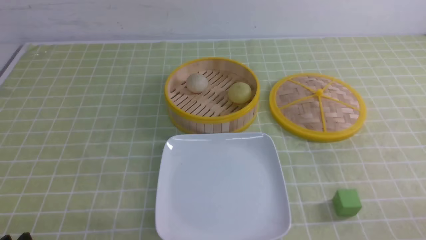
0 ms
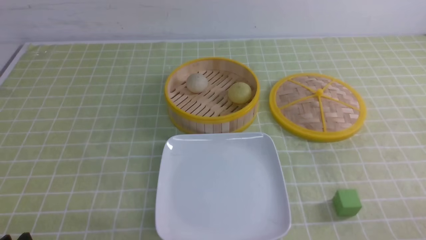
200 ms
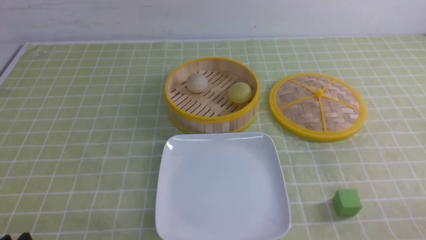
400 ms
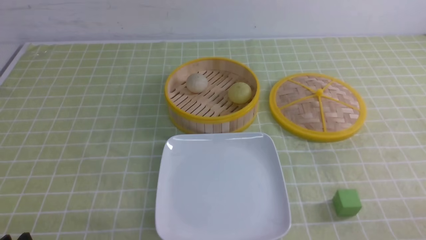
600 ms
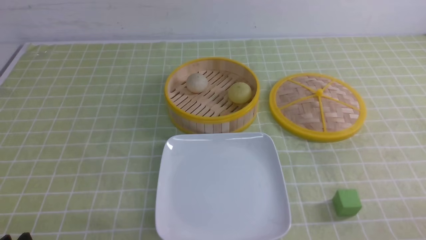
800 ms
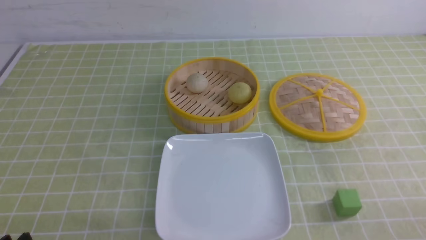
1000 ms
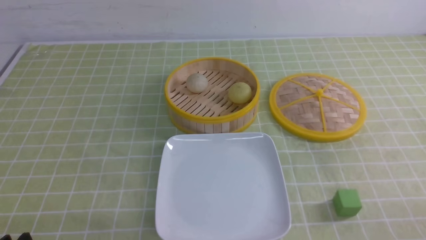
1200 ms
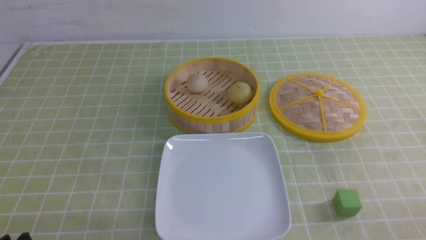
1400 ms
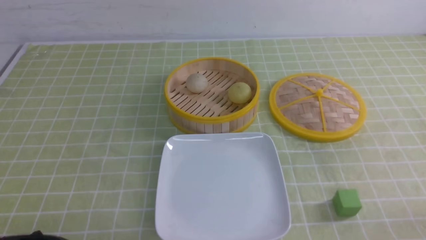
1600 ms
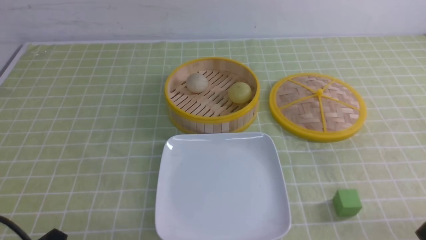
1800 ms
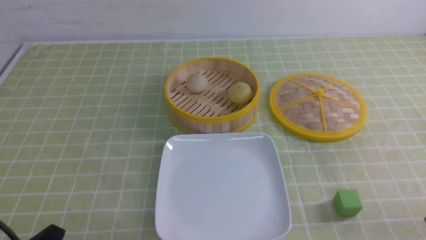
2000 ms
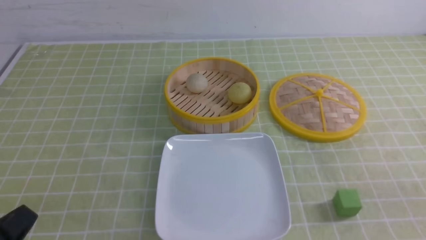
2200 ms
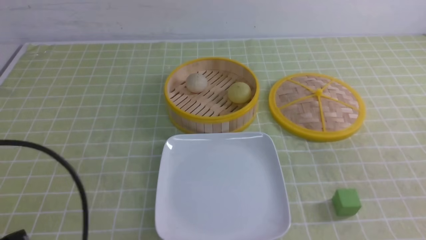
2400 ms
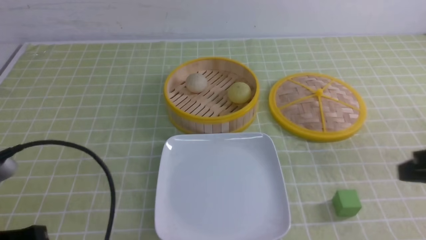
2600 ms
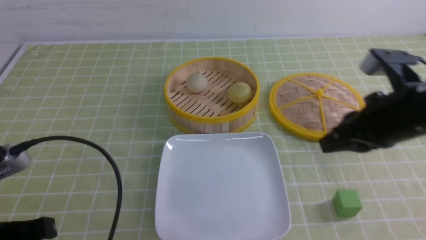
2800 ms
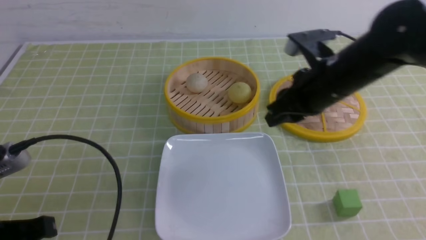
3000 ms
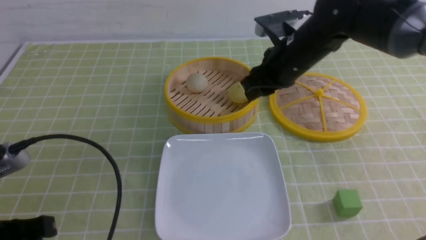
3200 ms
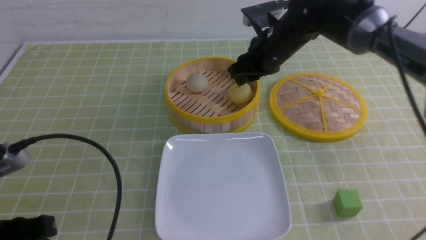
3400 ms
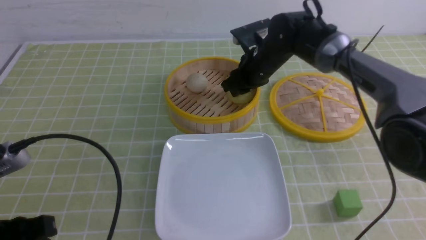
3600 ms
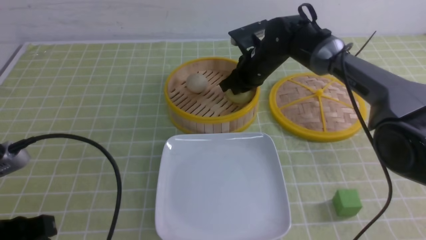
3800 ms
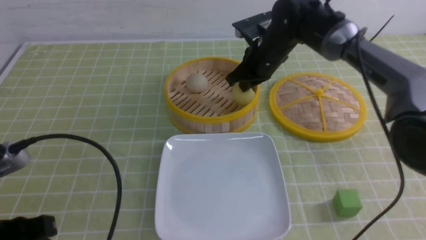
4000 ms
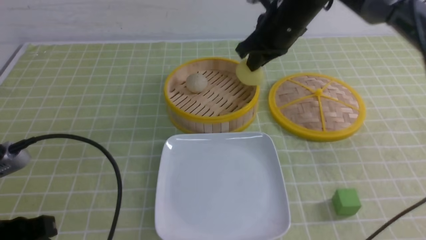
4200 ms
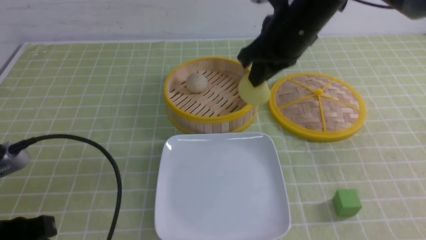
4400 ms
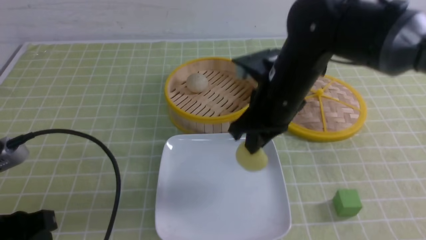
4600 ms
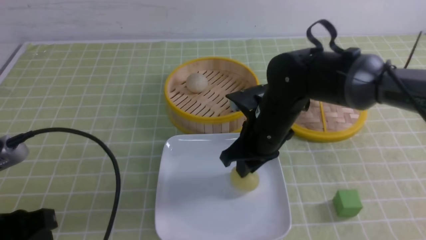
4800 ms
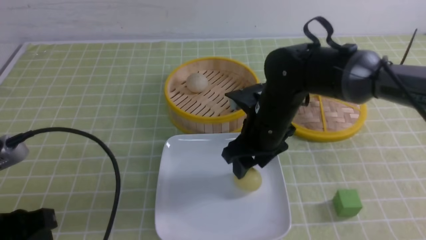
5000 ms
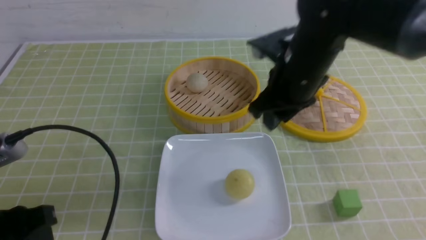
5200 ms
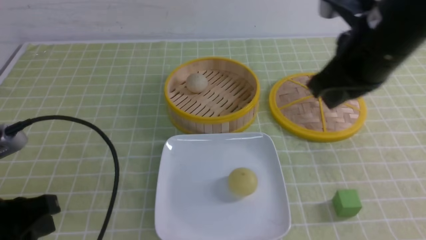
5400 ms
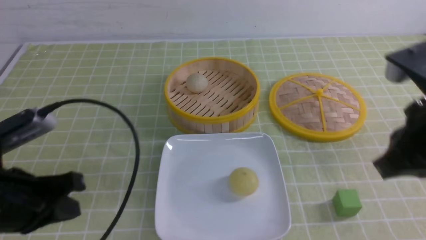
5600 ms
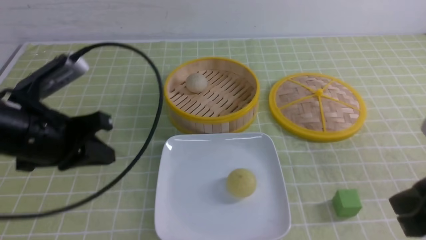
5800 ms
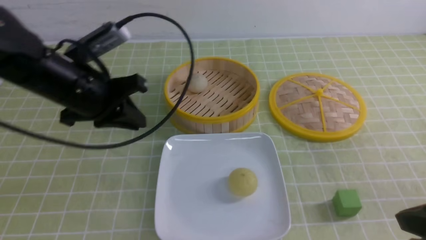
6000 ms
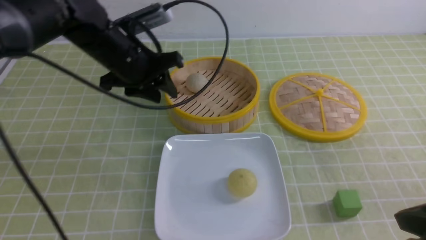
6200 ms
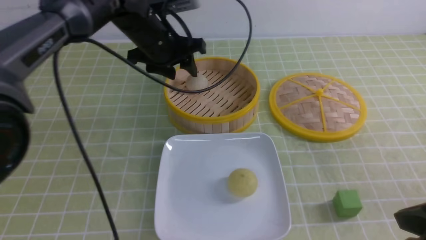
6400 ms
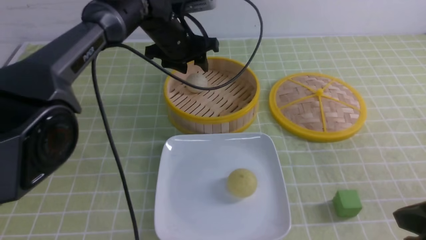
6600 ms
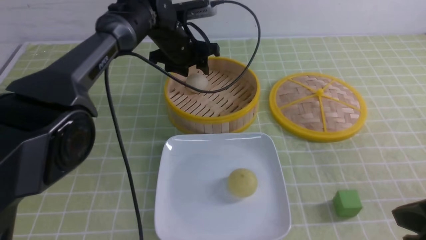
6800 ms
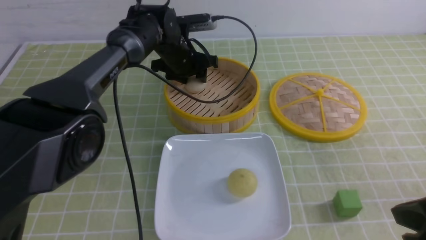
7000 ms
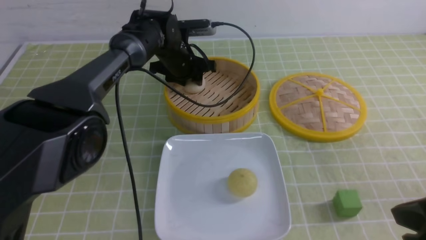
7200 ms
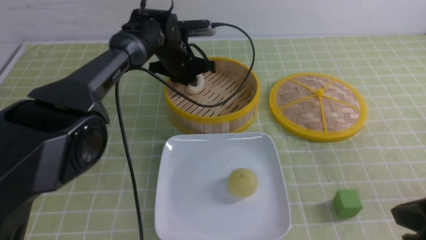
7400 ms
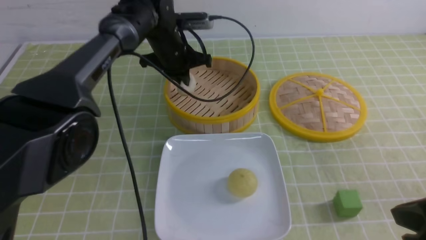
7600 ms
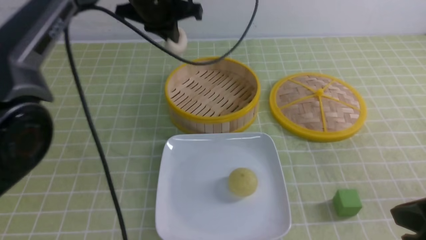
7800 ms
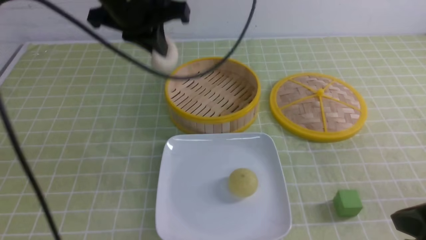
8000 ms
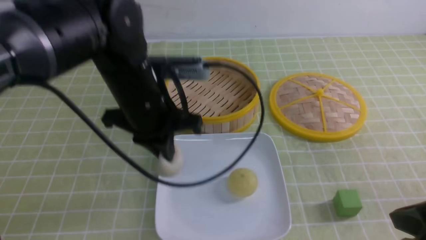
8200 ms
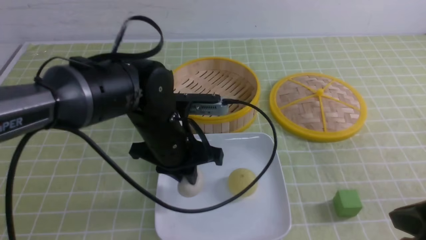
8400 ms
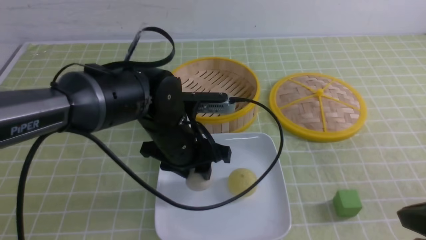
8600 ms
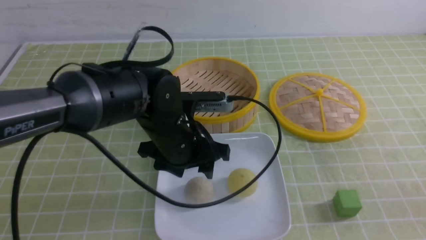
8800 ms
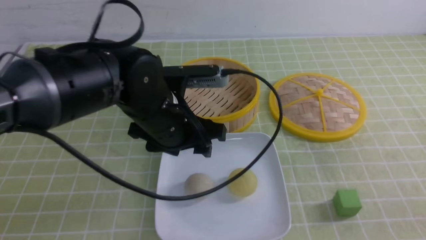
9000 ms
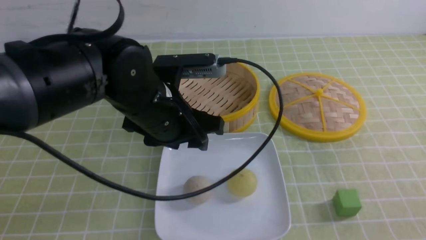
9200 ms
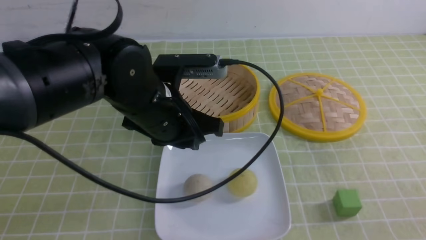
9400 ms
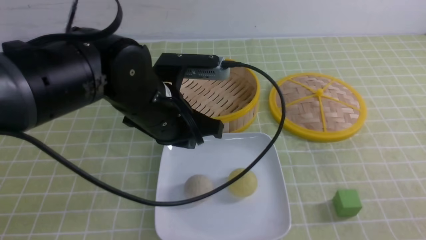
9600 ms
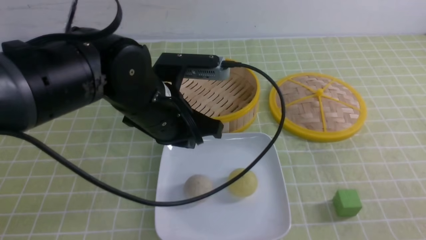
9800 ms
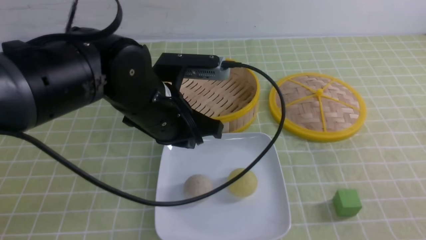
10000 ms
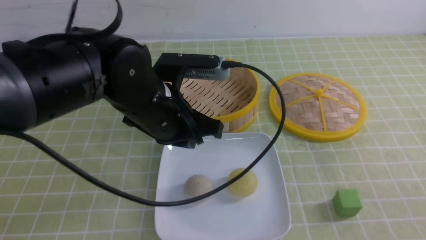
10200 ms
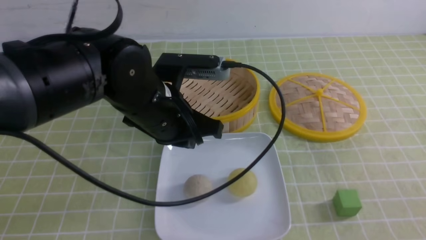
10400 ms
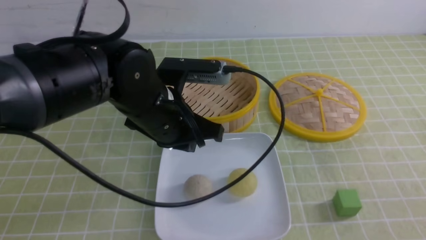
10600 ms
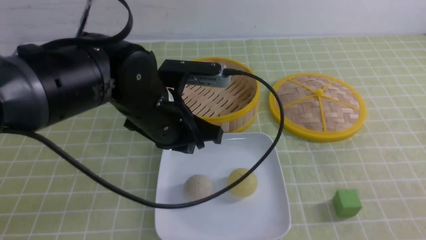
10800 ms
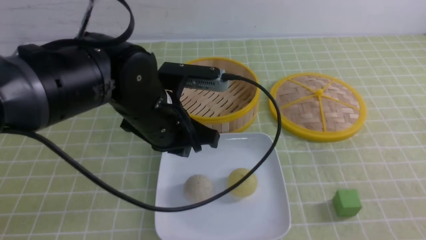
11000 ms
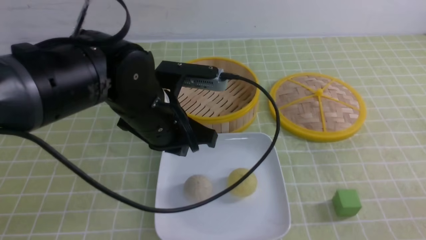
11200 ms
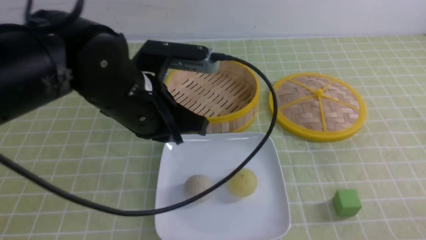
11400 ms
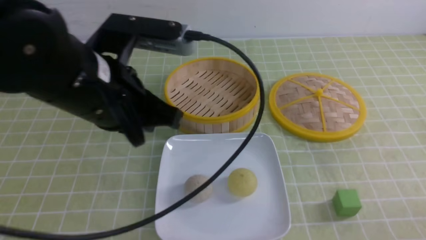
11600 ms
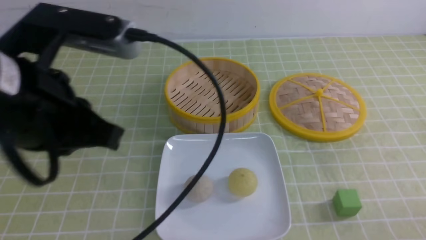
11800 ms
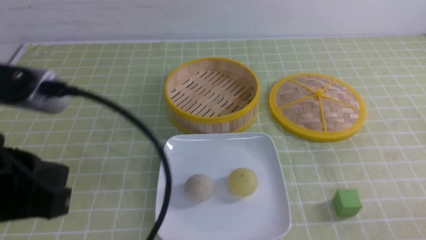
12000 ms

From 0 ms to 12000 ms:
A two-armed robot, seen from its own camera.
Step, from 0 ms to 3800 ms: use the right arm to grab the steamed stuffed bun that is closest to it.
Step, from 4000 ms to 5000 ms: use the right arm to put the steamed stuffed bun into the plate.
Step, from 5200 ms to 7400 ms: use the left arm to grab the steamed stuffed bun that is closest to it.
Step, from 7800 ms to 8800 ms: use the left arm to put the steamed stuffed bun into the plate.
From 1600 ms to 3000 ms: The left gripper travels upward and forward by about 10 cm. Meanwhile the right gripper moves forward, to the left and upward, some 35 cm, and closes, then opens again.
From 3000 ms to 4400 ms: The left gripper opens, while the right gripper goes approximately 5 cm to the left, moves roughly 15 cm forward and comes back, and closes its fingers.
From 4400 ms to 6000 ms: The left gripper goes roughly 20 cm forward. The right gripper goes roughly 30 cm backward and to the right, and opens, then closes once more.
From 6000 ms to 7600 ms: The left gripper is displaced forward and to the right by about 20 cm, and opens and closes again.
From 7600 ms to 9000 ms: The right gripper heads backward, covering approximately 10 cm, while the left gripper travels backward by about 20 cm, and opens up.
From 9000 ms to 10400 ms: The left gripper closes up.
From 10400 ms to 12000 ms: The left gripper travels backward, to the left and upward by approximately 20 cm; the right gripper travels downward by approximately 10 cm.

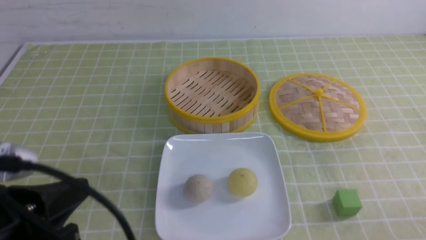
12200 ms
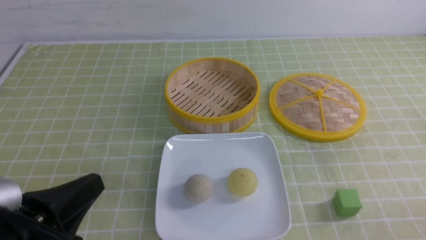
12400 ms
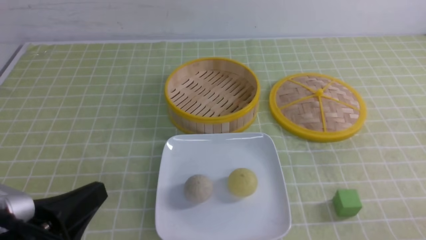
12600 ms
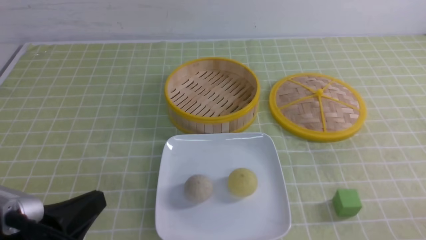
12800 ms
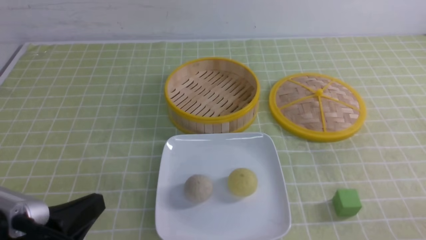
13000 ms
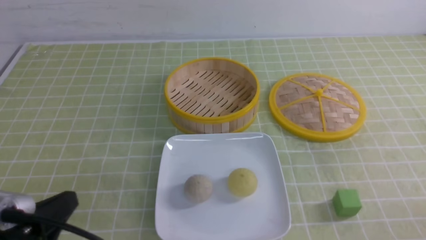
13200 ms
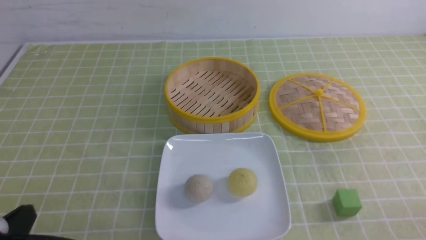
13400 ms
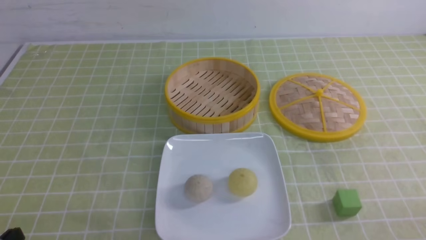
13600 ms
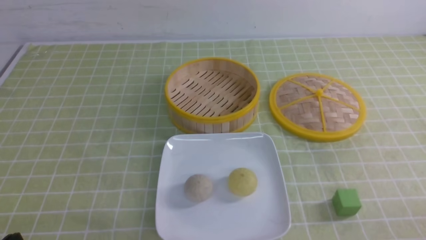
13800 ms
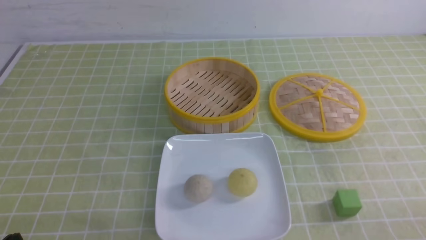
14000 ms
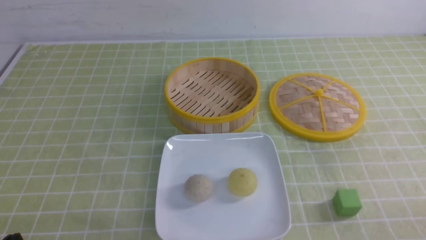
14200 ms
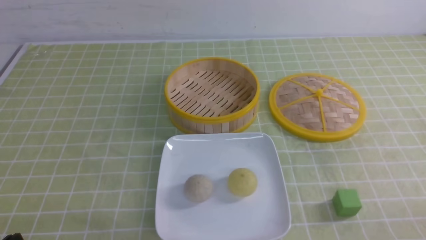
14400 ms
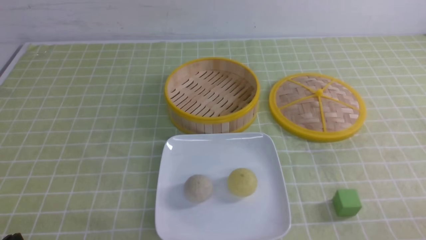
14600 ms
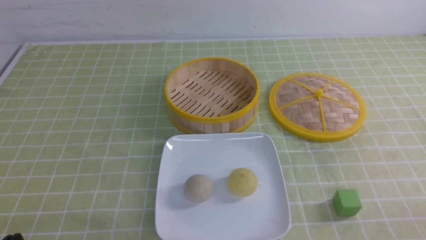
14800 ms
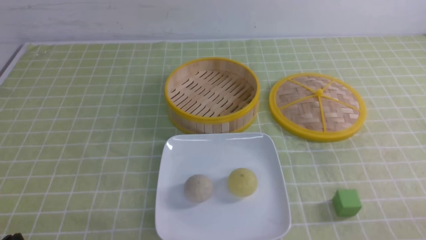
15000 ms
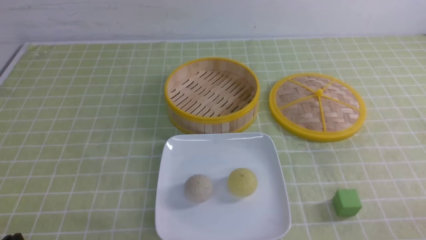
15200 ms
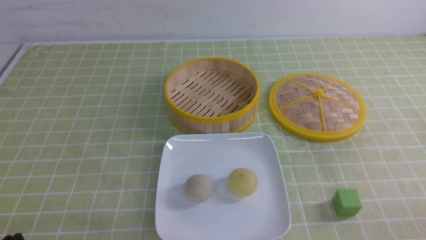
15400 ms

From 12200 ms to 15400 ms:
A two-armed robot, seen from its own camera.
From 12200 ms to 13800 ms: The left gripper heads downward and to the left, covering some 15 cm.
From 13800 ms to 15400 ms: Both grippers stay about where they are.

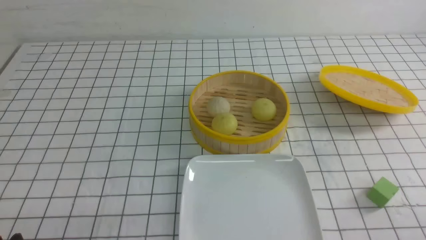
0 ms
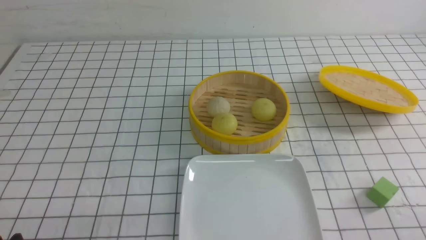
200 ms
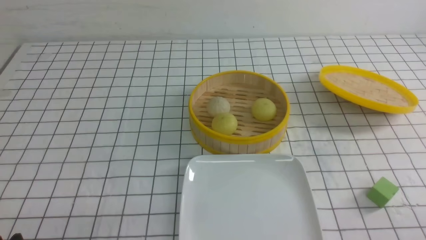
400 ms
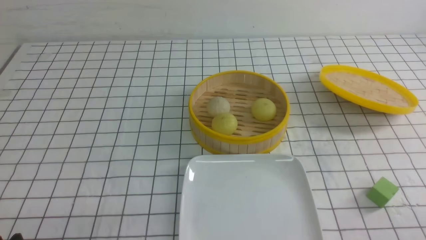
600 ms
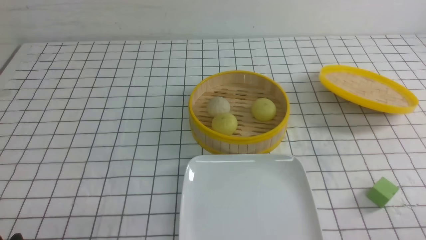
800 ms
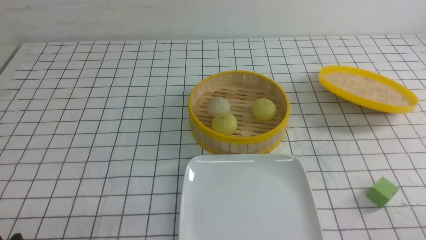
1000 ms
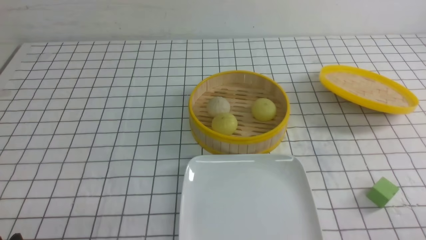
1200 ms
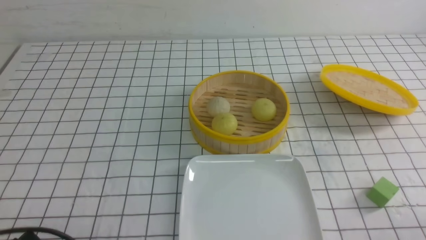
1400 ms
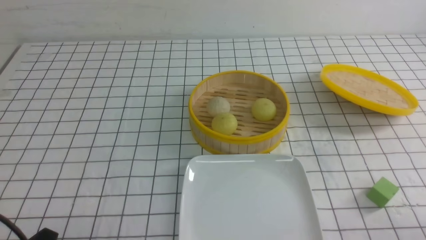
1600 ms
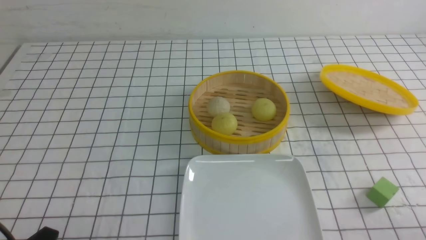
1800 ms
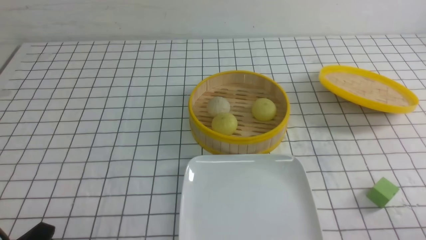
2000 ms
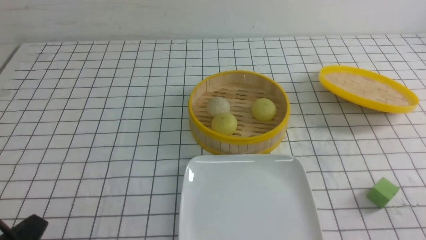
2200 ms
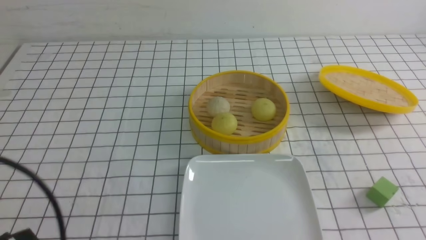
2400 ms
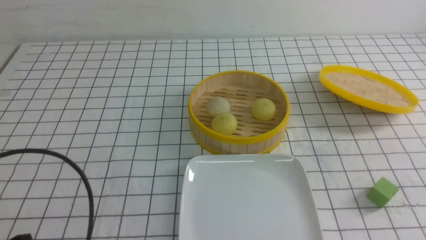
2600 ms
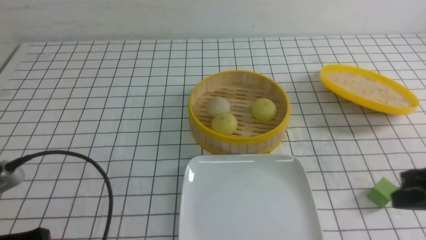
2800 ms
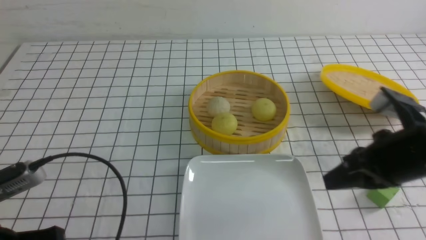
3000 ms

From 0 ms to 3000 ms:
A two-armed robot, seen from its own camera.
From 1600 ms to 3000 ms: The left gripper travels upward and forward by roughly 10 cm, and closes up, while the right gripper goes roughly 20 cm forward, upward and to the left, and closes up.
